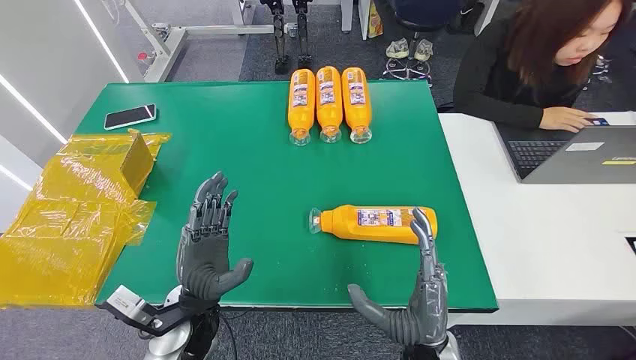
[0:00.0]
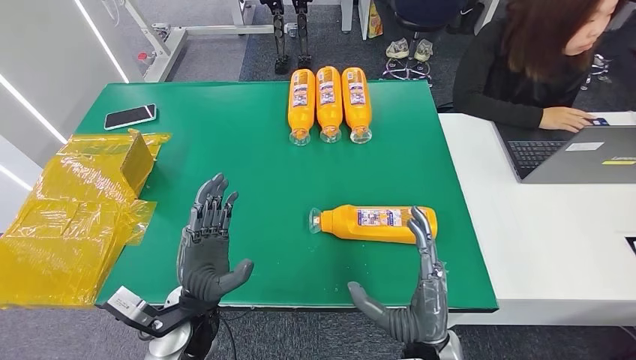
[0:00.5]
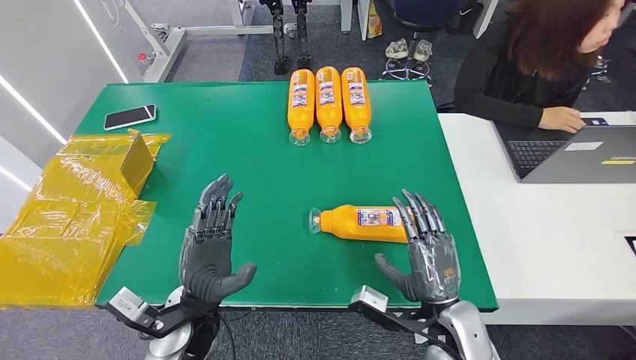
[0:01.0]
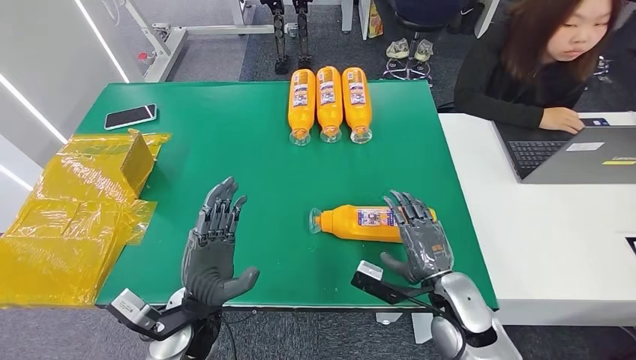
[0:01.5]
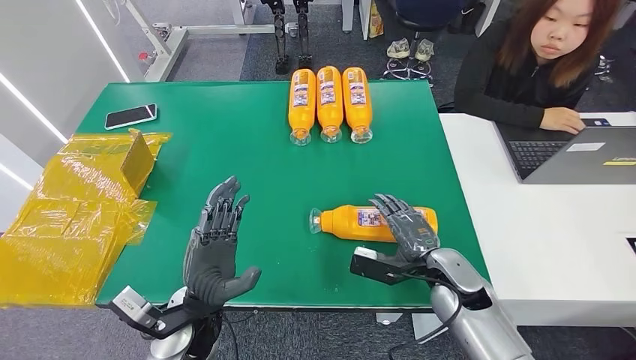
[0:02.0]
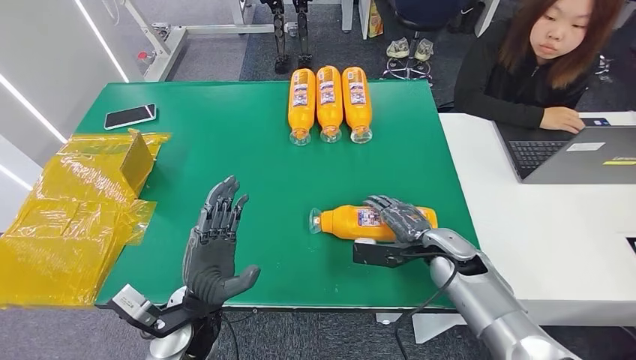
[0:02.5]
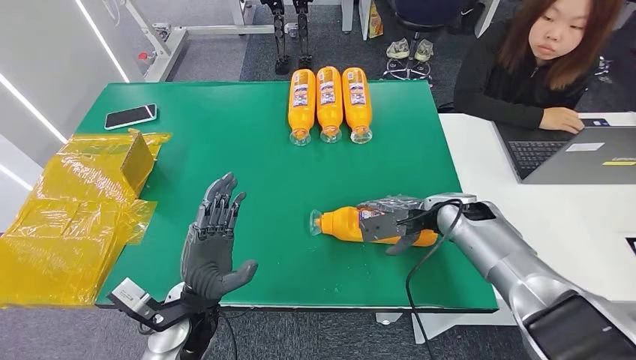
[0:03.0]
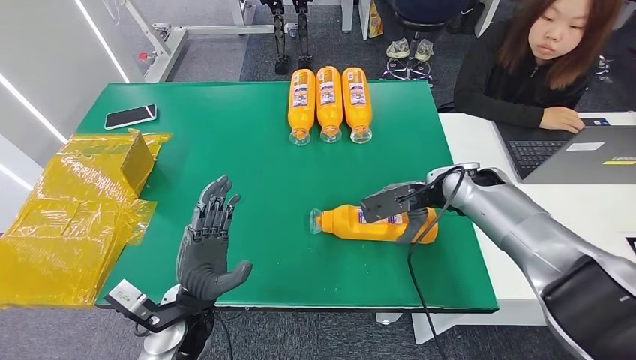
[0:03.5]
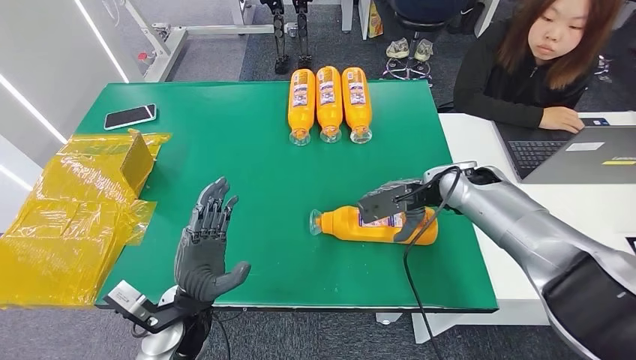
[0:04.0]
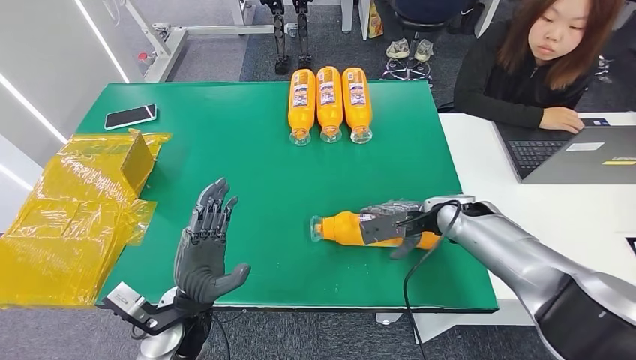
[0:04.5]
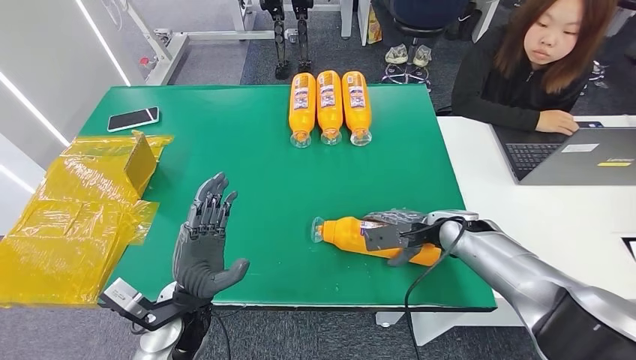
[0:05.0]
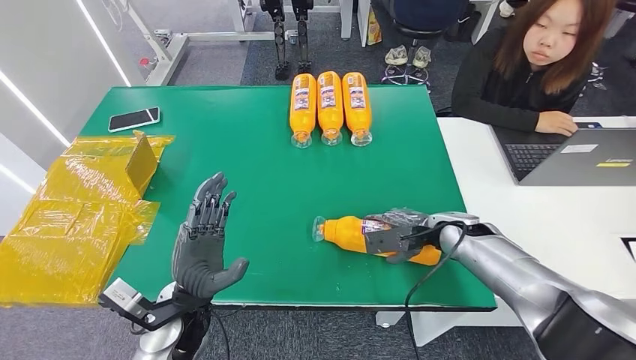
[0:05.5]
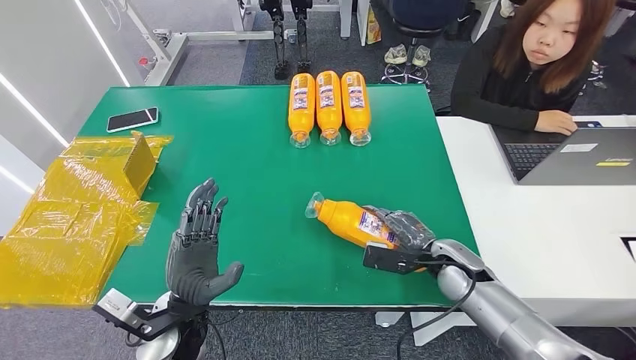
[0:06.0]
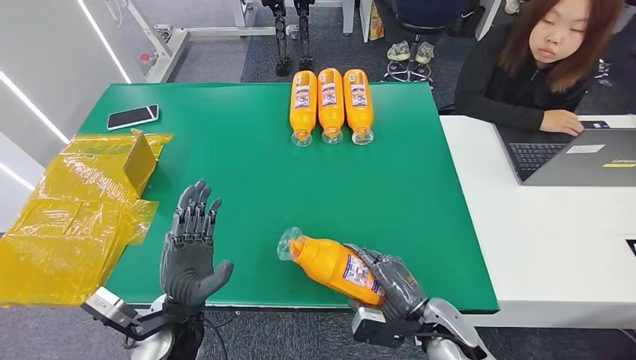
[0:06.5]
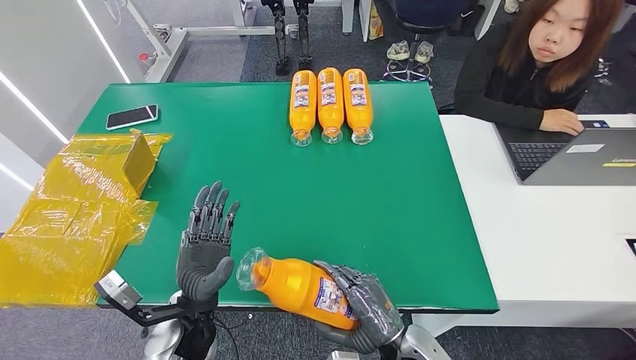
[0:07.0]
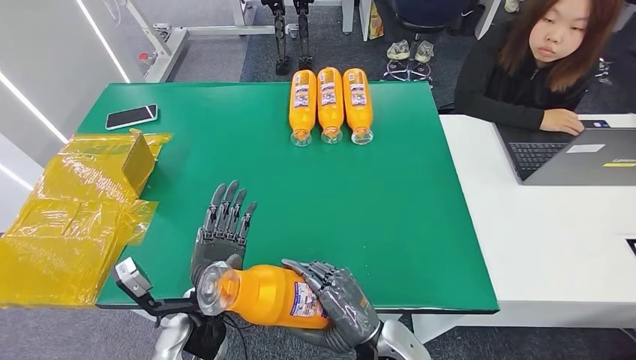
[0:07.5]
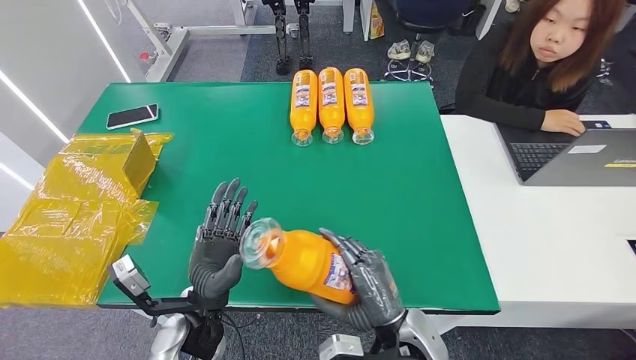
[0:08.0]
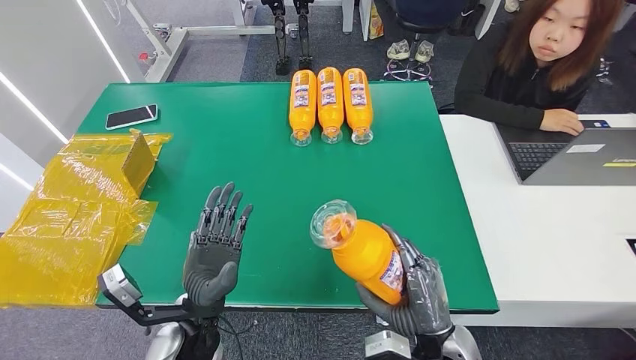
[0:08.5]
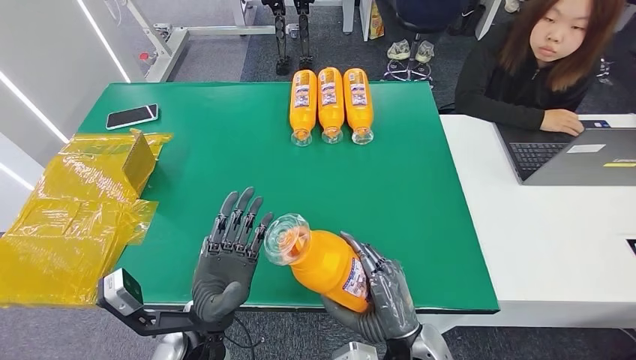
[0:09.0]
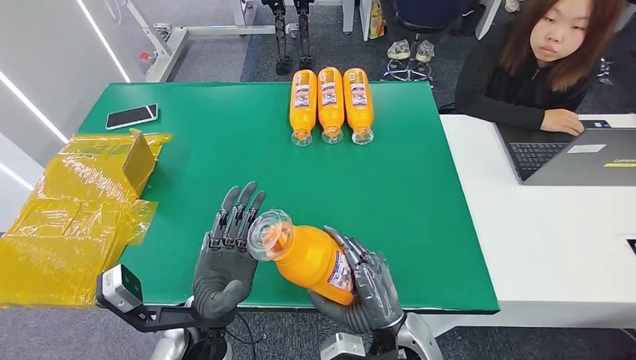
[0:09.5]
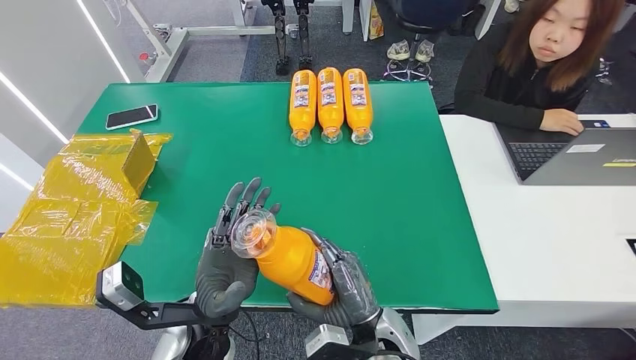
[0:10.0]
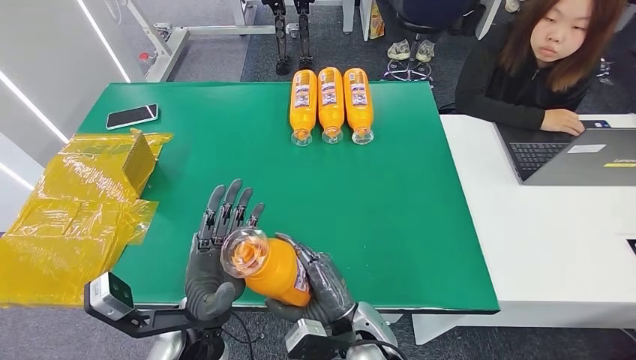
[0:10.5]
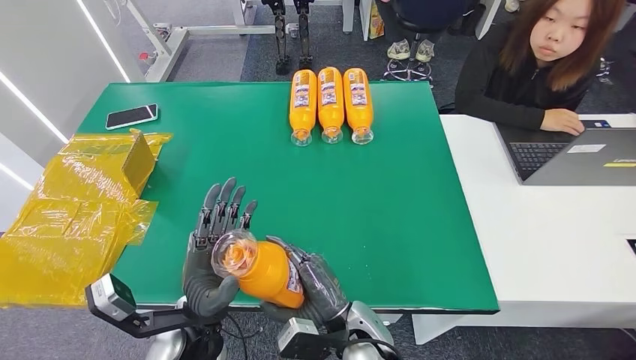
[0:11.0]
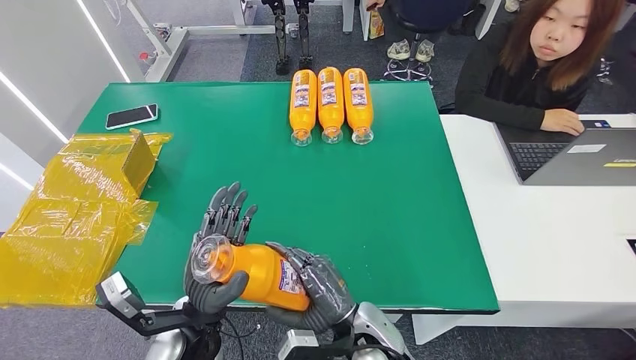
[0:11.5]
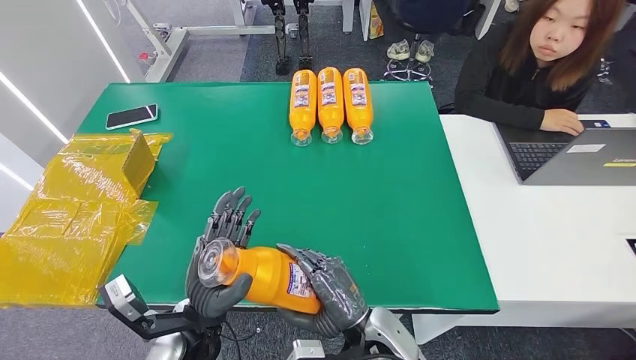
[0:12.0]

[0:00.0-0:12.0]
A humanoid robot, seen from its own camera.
Step, 0:00.0 to 0:07.0: Pick up the bottle from the table.
0:02.0 to 0:04.0: The right hand is displaced forward and upward by approximately 20 cm.
0:08.0 to 0:10.0: The left hand shifts by roughly 5 cm.
0:10.0 to 0:12.0: The hands stay close to where they were, moving slightly.

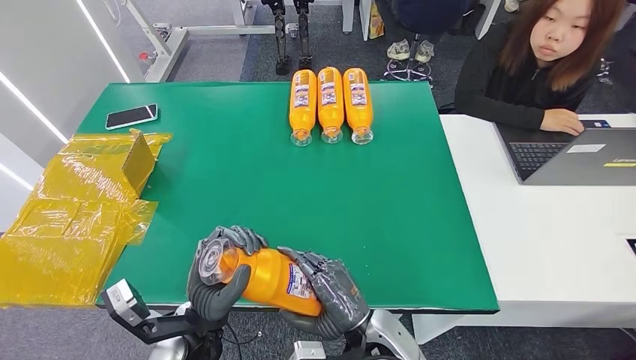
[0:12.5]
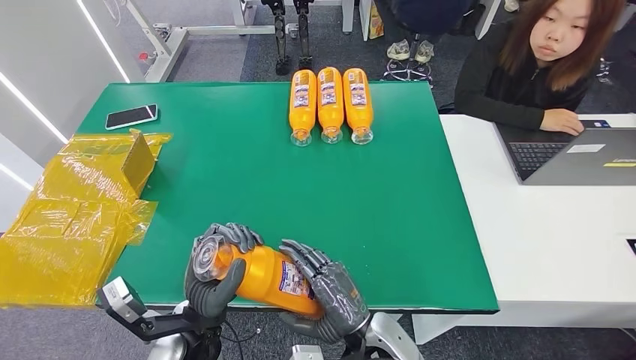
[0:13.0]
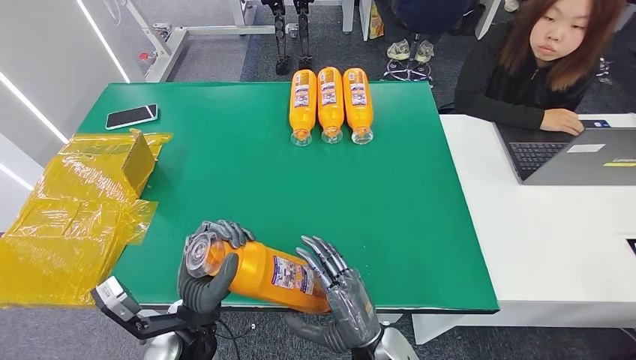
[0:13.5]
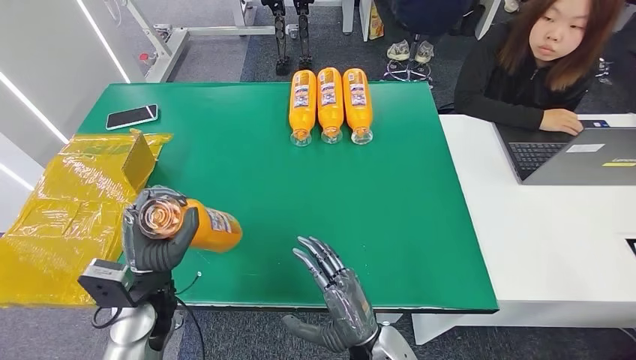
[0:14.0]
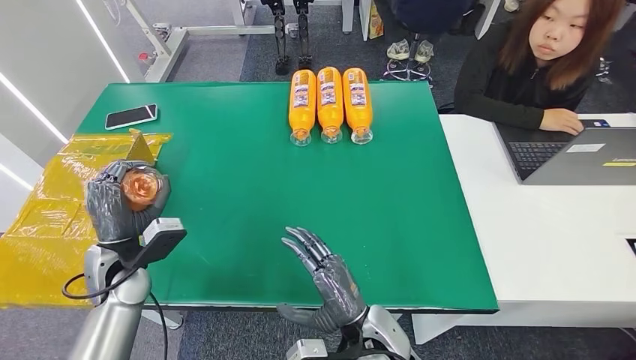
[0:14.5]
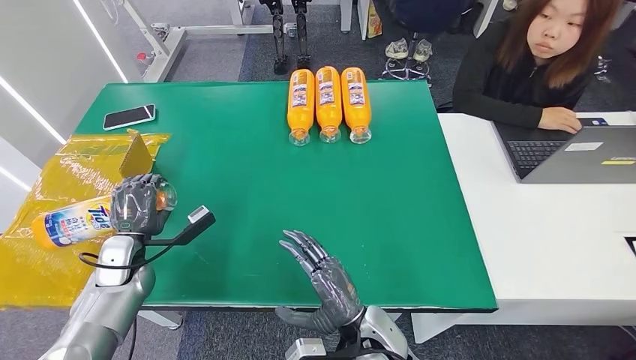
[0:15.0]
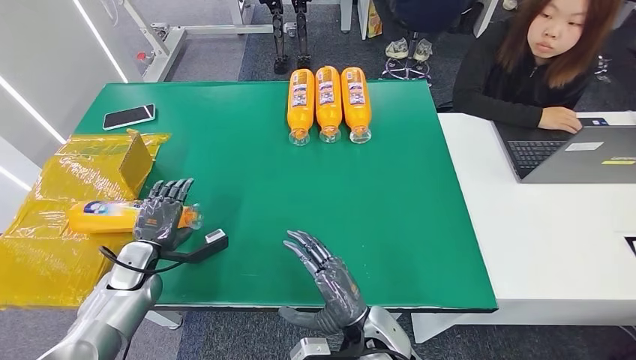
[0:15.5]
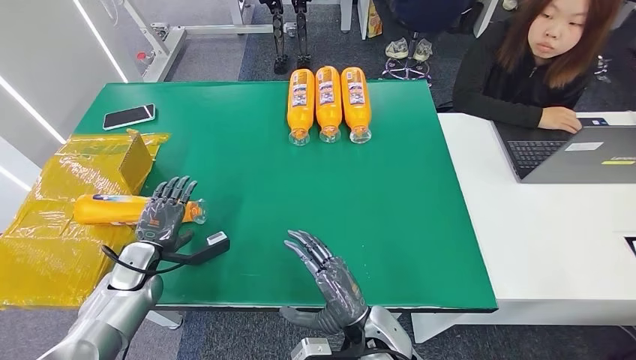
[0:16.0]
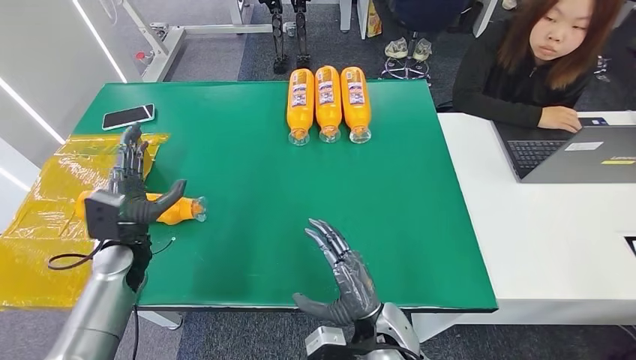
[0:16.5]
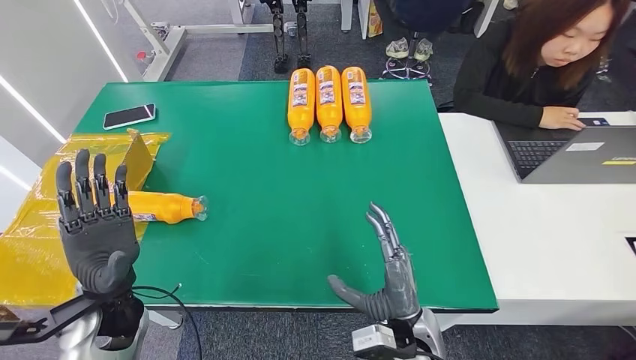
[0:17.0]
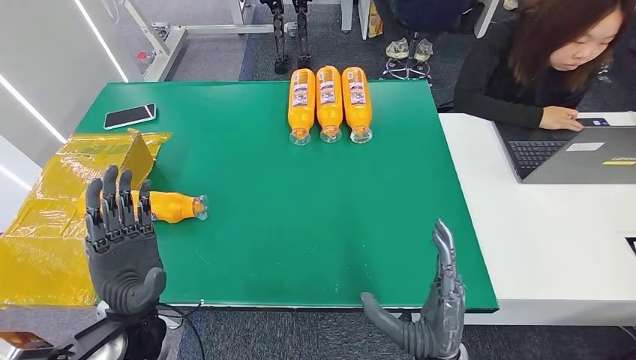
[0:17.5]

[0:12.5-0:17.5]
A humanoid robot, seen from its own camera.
Step, 0:12.5 to 0:17.5: Turn the bottle to the front side.
0:12.5 to 0:15.0: The left hand is displaced to the left and forward by roughly 25 cm.
0:15.0 to 0:17.5: The left hand heads to the right, backward and upward, covering roughly 20 cm. The right hand goes approximately 10 cm to the right and backward.
